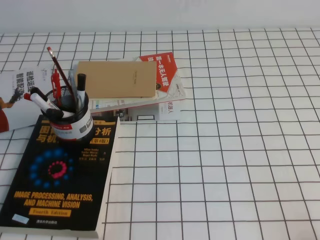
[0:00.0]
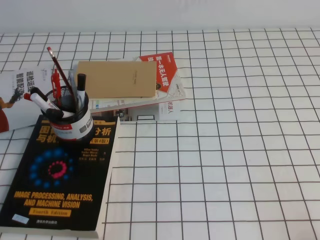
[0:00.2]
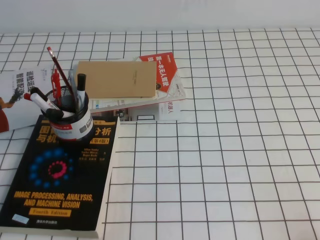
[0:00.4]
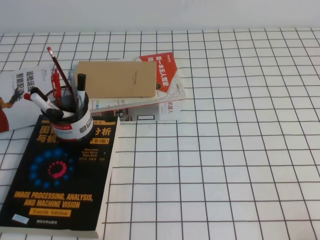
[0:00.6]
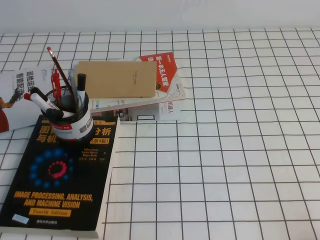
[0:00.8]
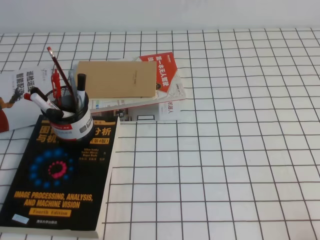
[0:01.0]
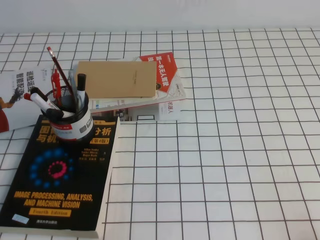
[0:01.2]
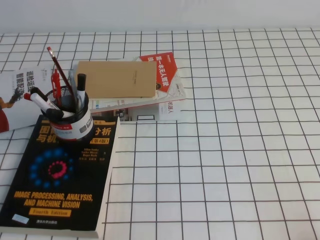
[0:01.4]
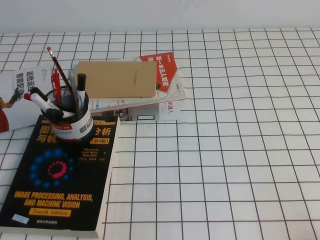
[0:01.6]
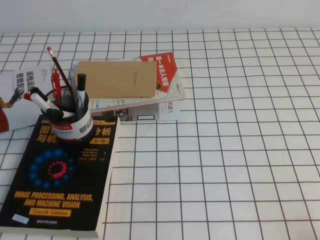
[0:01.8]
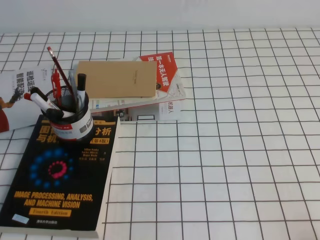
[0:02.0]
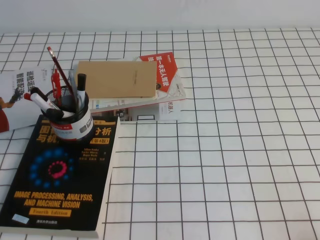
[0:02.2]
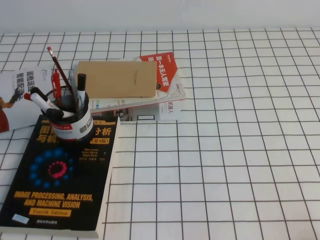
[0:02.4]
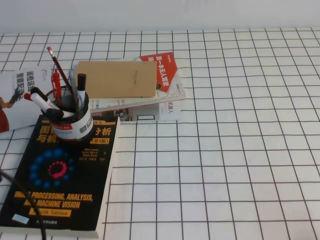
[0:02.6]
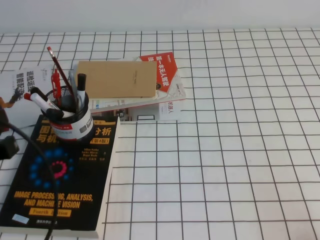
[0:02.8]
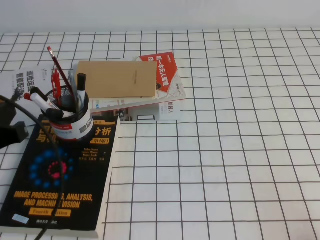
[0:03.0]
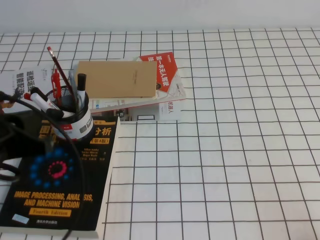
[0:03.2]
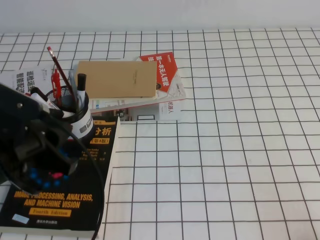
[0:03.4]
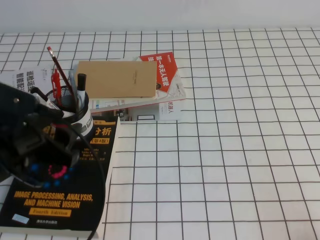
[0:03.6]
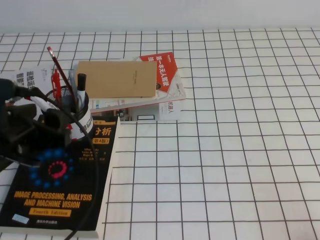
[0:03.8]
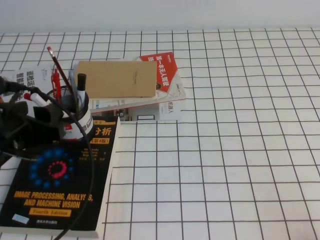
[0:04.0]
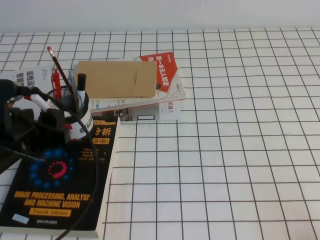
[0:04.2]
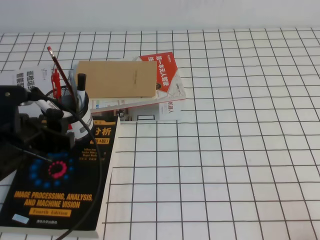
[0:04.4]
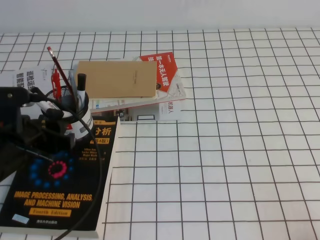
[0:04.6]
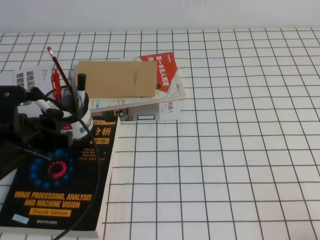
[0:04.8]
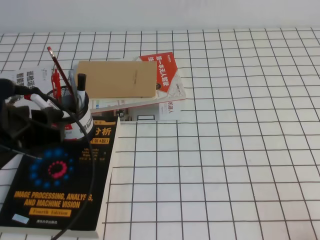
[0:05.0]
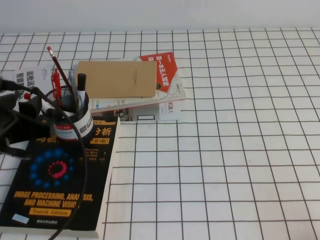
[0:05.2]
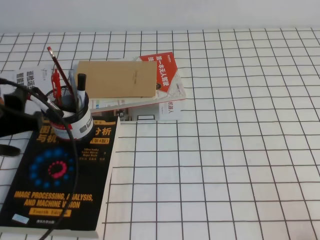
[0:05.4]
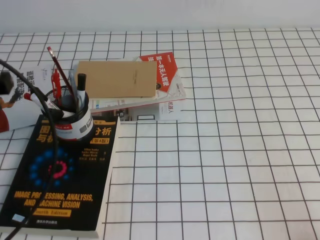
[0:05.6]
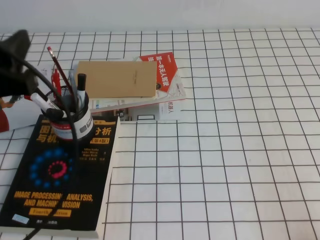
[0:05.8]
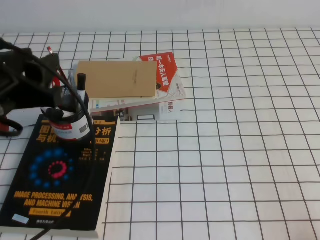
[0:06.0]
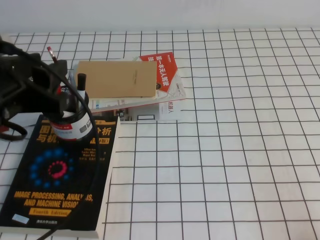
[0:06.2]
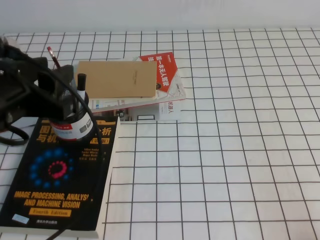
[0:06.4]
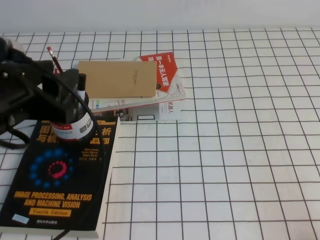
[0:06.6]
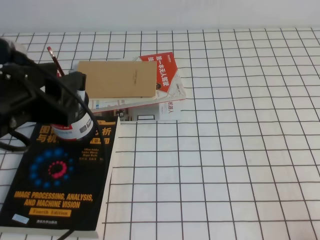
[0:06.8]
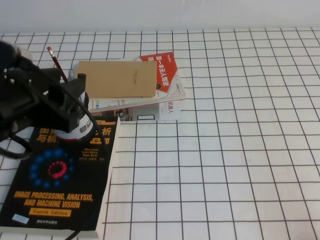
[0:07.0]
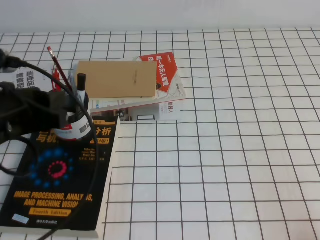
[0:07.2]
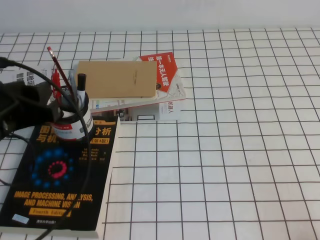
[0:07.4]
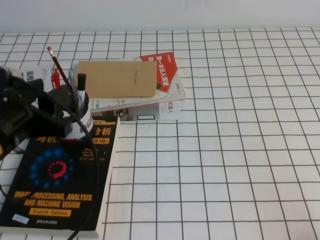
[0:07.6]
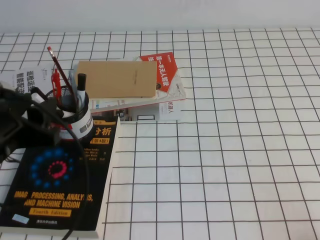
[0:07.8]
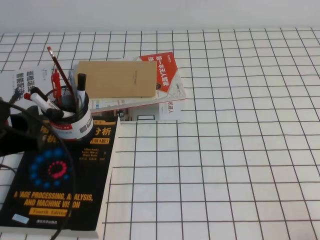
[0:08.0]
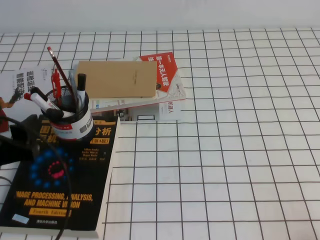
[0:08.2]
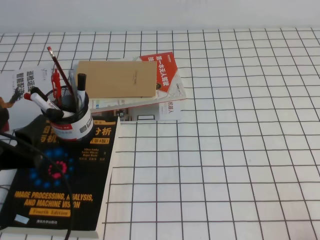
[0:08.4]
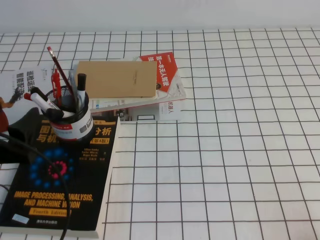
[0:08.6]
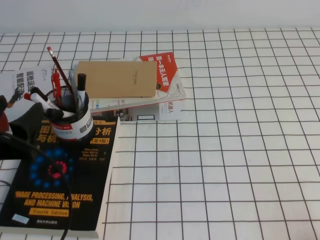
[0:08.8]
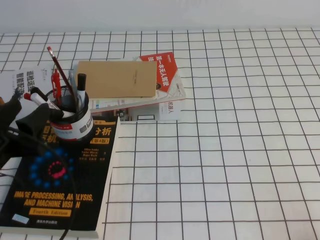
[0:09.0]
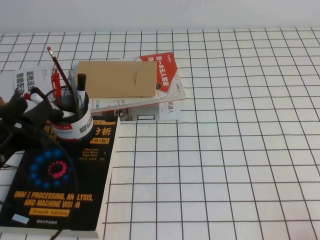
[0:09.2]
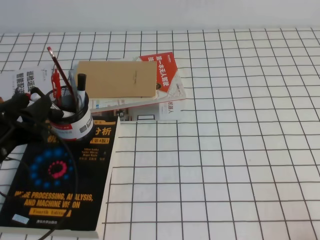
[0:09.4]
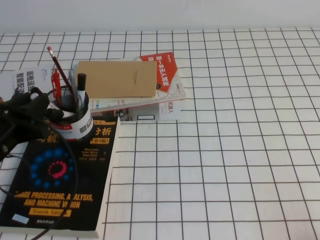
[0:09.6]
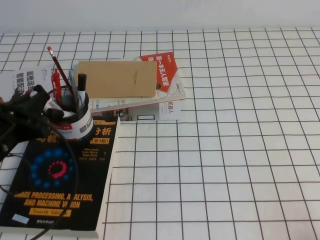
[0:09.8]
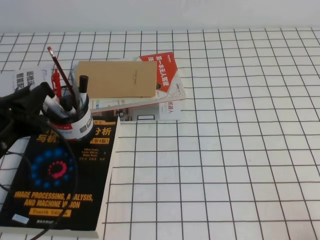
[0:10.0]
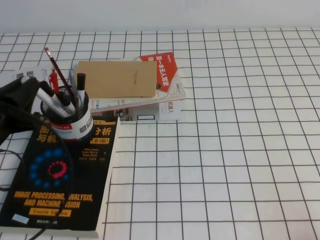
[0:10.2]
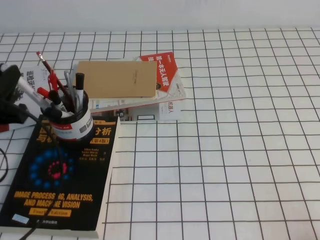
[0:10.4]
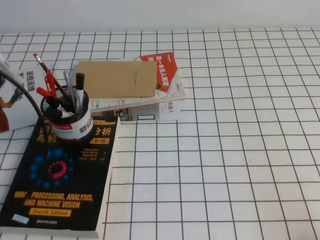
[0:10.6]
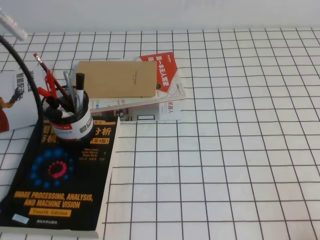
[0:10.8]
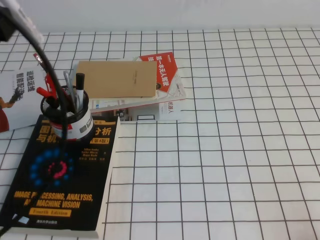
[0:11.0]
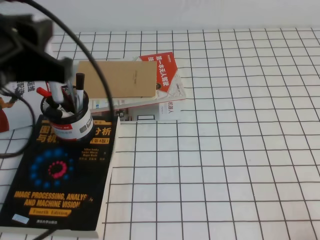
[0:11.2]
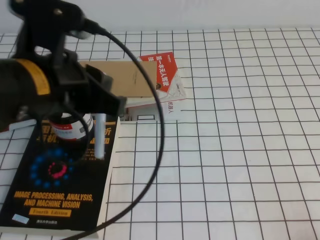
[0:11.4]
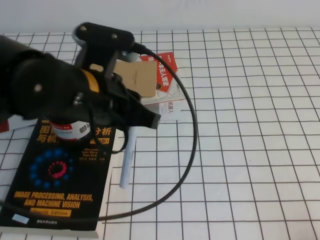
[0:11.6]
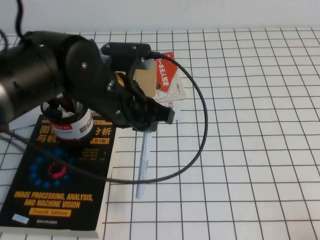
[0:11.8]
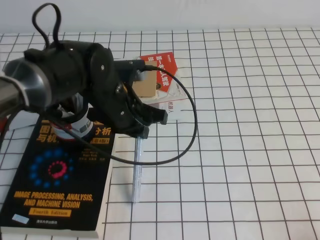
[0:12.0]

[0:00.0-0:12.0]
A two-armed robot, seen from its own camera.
0:01.6 to 0:03.0: The left gripper moves forward and upward, some 15 cm.
0:03.0 to 0:04.4: The left gripper travels forward and downward by roughly 10 cm, and opens up.
0:04.4 to 0:06.0: The left gripper travels upward by approximately 10 cm.
0:06.0 to 0:07.6: The left gripper is displaced downward by roughly 5 cm.
0:07.6 to 0:09.0: The left gripper is displaced downward by some 5 cm.
0:09.0 to 0:10.4: The left gripper closes up.
0:10.4 to 0:12.0: The left gripper goes roughly 20 cm to the right and forward.

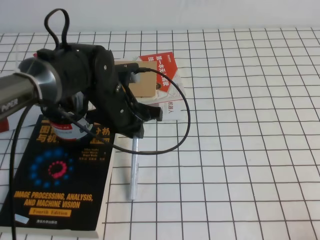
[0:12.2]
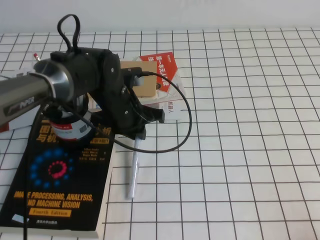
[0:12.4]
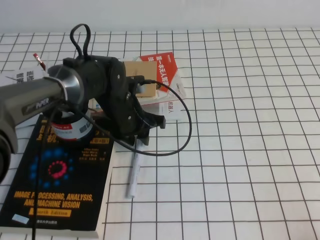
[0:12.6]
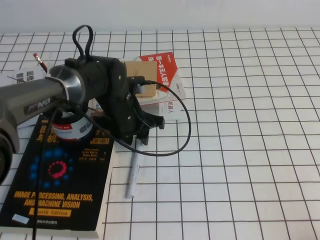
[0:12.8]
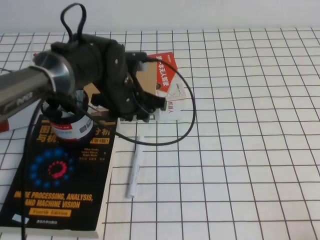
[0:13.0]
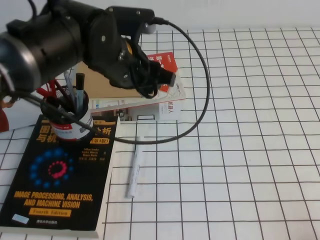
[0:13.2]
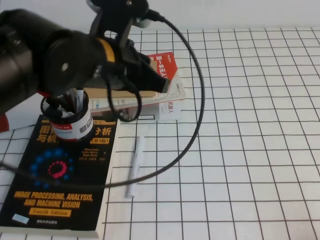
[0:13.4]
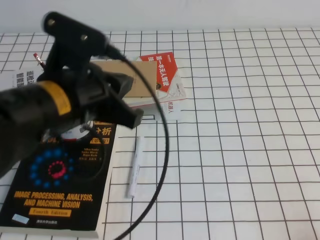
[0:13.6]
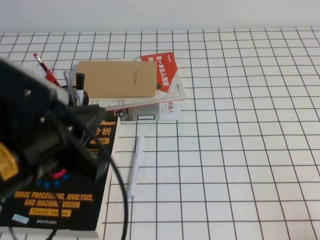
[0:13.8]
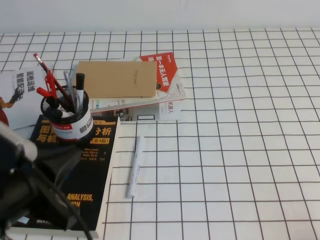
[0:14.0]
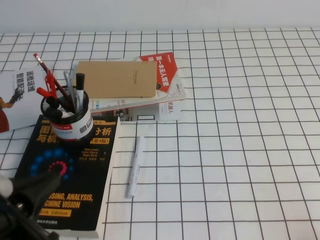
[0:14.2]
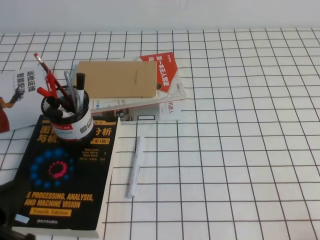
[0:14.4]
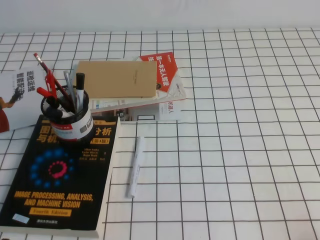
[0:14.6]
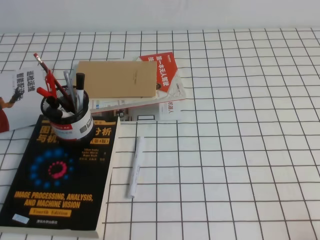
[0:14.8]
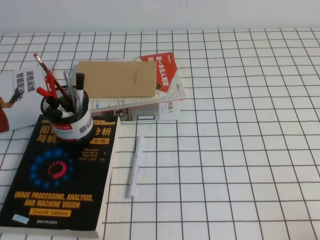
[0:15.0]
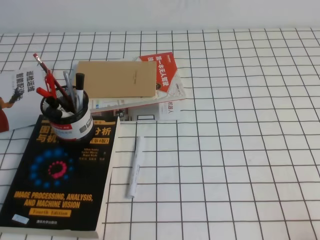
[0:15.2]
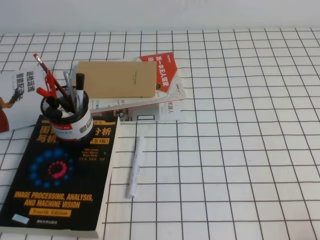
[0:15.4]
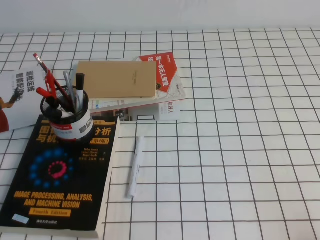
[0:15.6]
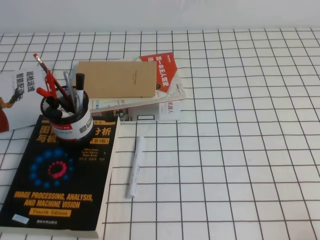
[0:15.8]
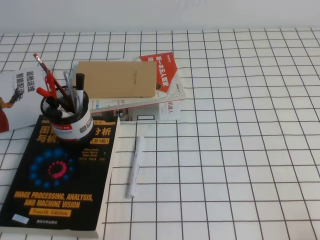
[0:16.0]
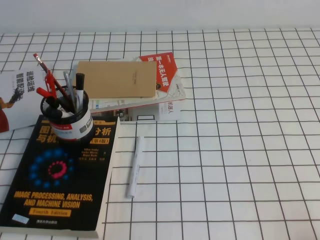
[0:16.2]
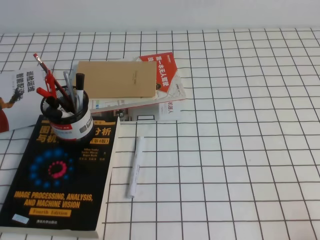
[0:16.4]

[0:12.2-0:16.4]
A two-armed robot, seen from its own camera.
Step, 0:12.2 to 0:16.4: Pick up the pen from the pen holder.
0:12.2 to 0:13.6: The left gripper travels backward and upward by approximately 15 cm, and opens, then closes once more.
0:13.6 to 0:15.0: The left gripper heads backward, to the left and downward, covering some 30 cm.
